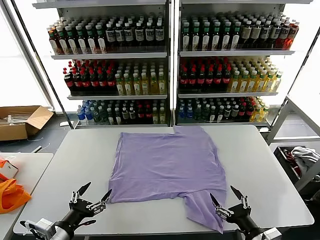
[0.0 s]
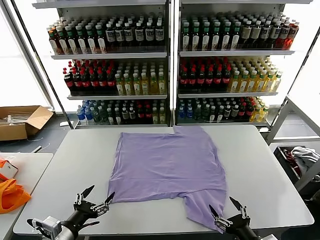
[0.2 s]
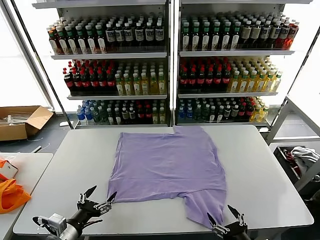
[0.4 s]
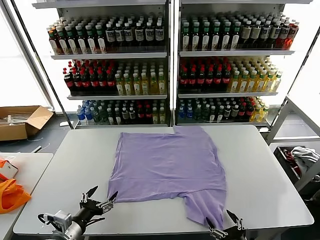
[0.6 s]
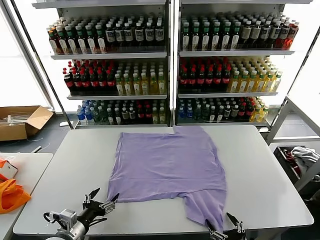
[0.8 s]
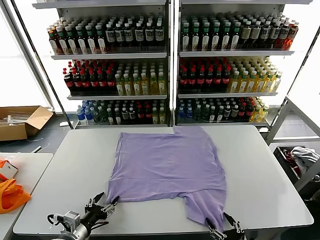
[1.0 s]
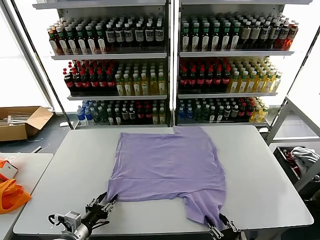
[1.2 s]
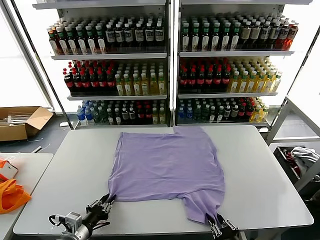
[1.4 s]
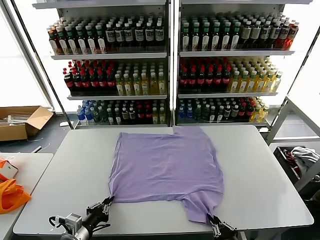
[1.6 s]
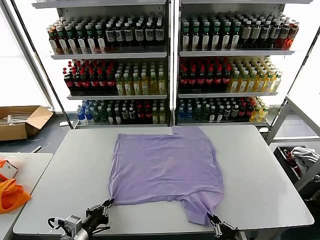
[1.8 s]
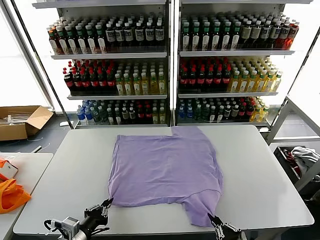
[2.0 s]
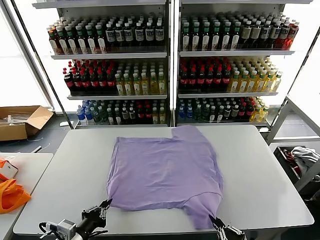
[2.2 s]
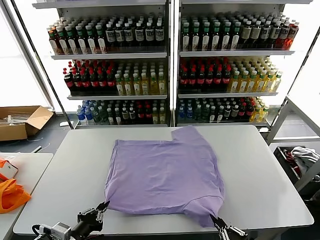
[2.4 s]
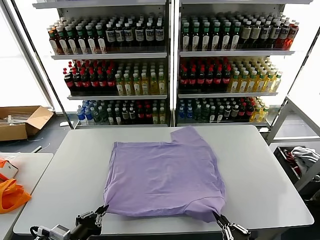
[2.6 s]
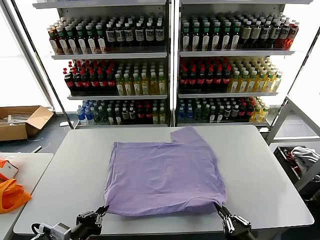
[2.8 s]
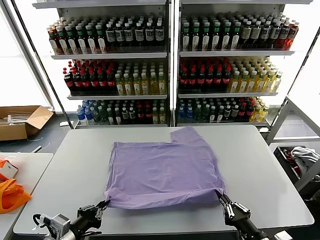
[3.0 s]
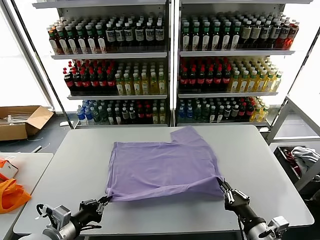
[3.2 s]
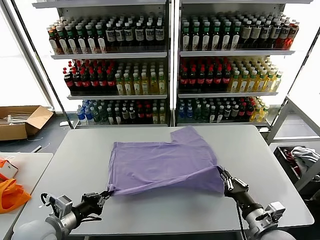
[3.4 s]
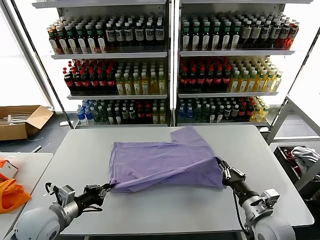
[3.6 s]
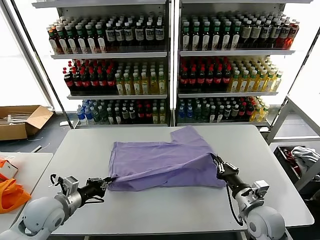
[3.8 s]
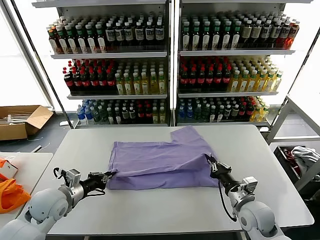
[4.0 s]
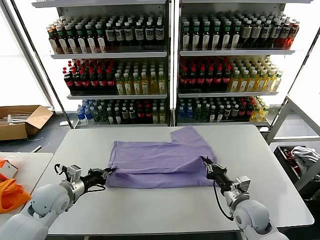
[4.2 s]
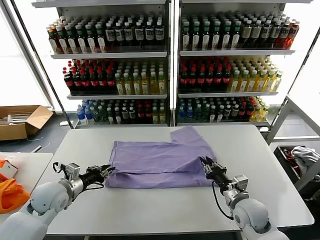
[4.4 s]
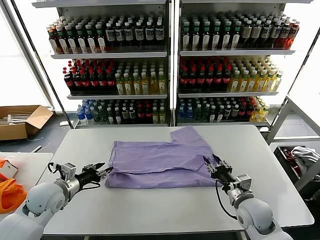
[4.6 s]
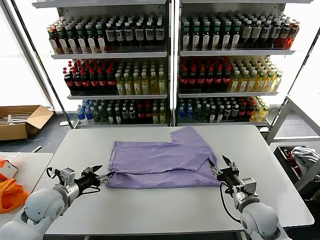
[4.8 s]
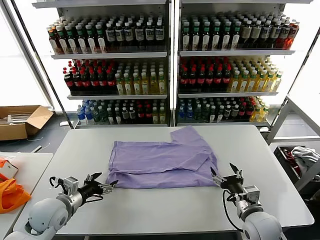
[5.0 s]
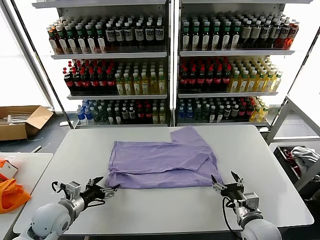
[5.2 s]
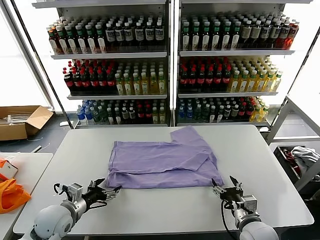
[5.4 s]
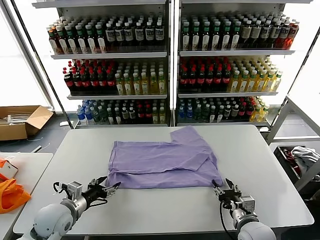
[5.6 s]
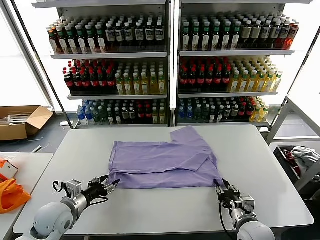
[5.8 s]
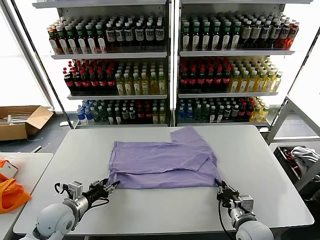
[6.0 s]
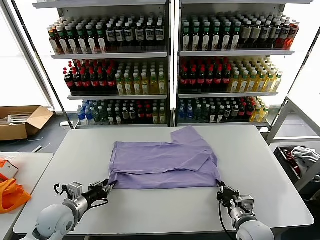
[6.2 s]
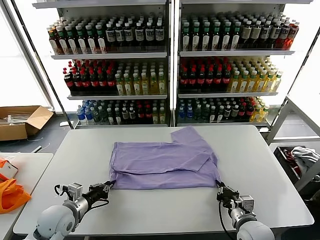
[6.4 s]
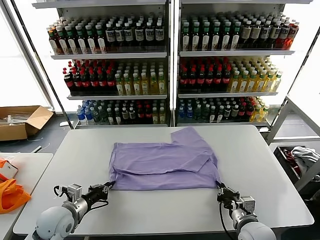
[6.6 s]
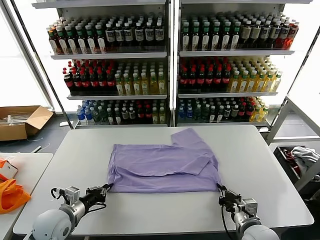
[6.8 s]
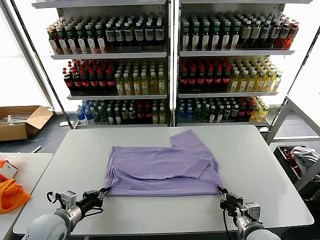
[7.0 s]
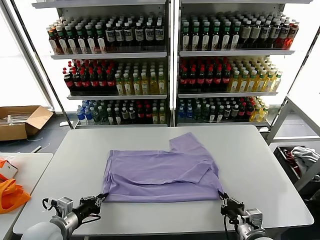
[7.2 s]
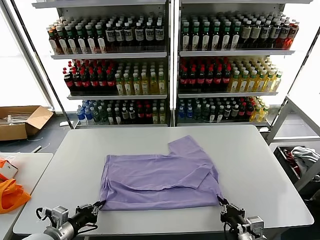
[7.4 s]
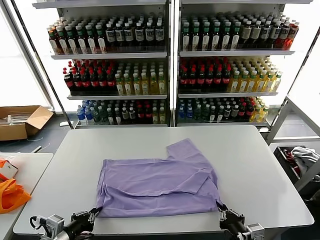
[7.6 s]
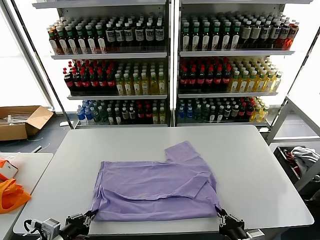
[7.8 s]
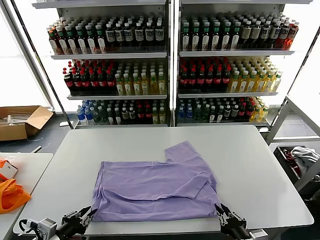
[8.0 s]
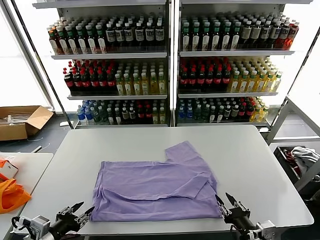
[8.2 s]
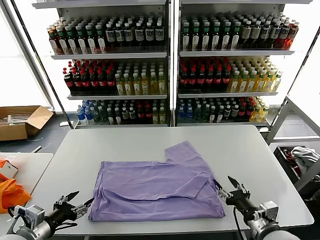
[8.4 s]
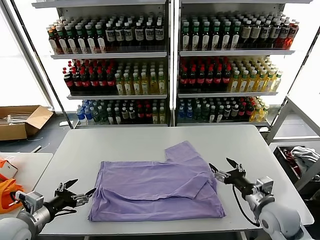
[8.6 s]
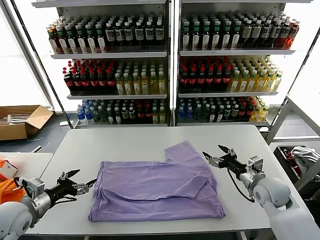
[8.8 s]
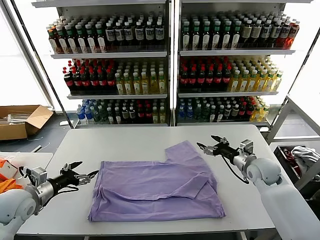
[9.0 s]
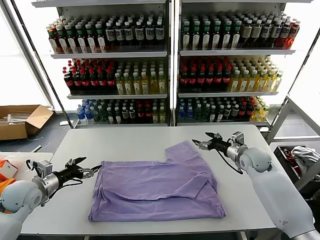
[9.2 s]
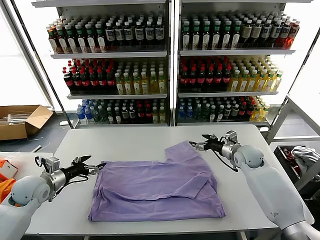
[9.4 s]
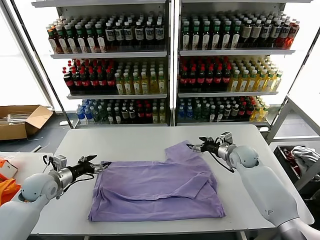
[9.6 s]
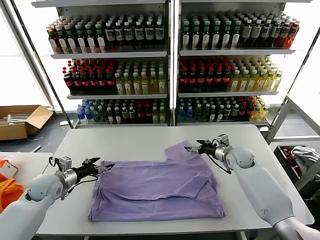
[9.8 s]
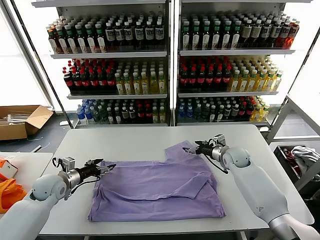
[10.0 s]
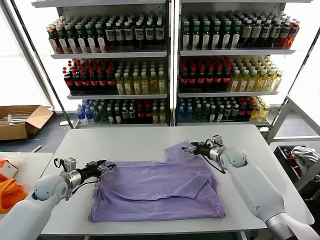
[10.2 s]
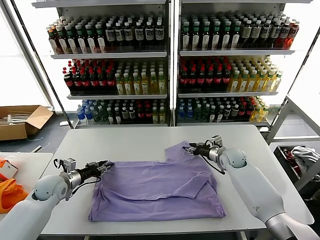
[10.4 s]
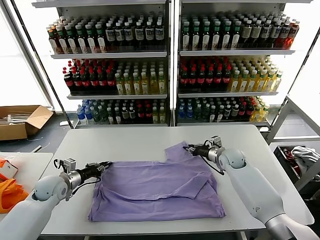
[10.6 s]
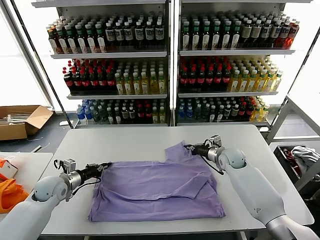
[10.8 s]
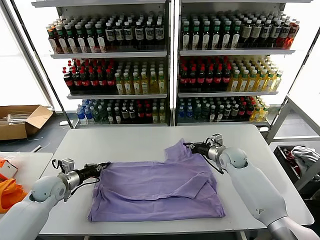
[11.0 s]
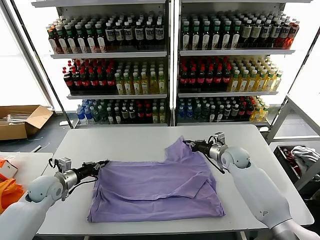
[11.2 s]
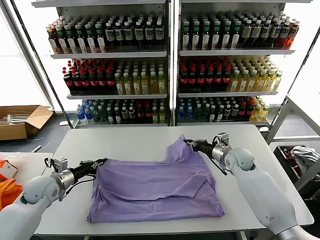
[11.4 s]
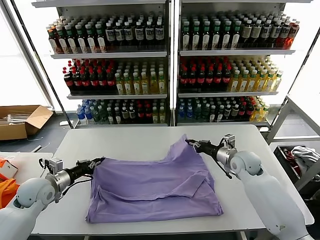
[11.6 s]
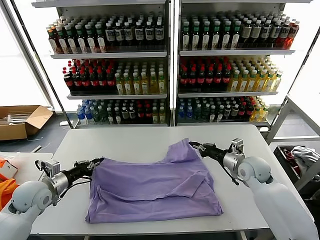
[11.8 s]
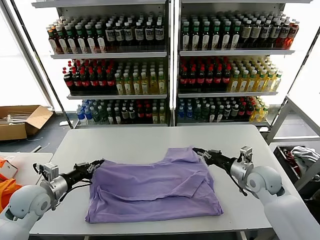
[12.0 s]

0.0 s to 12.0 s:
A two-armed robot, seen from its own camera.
Task of the whole recording: fold and organize the clothes.
Step, 0.0 to 1.6 s: use both grippers simultaneously to clamp the lower edge of the clothing fabric.
Step, 1.8 to 4.6 s: use both grippers to drag the lower edge of the fabric forward and fold it over the upper edge.
Step, 4.8 to 8.0 s: Drag the clothes downward with both gripper.
Step, 8.2 to 10.8 s: use both grippers simultaneously to clamp the upper edge of the clothing fabric.
1.6 to 3.0 s: The left gripper moves upward, about 10 cm. Meanwhile the right gripper changes place by approximately 5 cm.
3.0 to 4.4 s: The grippers both shift forward by about 15 cm. The right gripper opens up.
4.4 to 6.0 s: The grippers both shift backward by roughly 5 cm. The left gripper opens and closes again, while the right gripper closes up.
6.0 to 7.6 s: Both grippers move backward, some 10 cm. The left gripper closes up.
7.6 to 9.0 s: The left gripper travels forward and to the left by approximately 15 cm, and opens, while the right gripper moves forward, roughly 30 cm, and opens up.
9.0 to 10.4 s: The right gripper heads forward, downward and to the left, covering approximately 10 cm, and closes up; the left gripper shifts some 10 cm forward and downward, and closes its fingers.
10.4 to 12.0 s: The right gripper moves backward and upward, approximately 15 cm, and closes; the left gripper shifts roughly 10 cm backward and upward, and closes up.

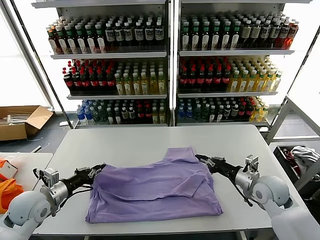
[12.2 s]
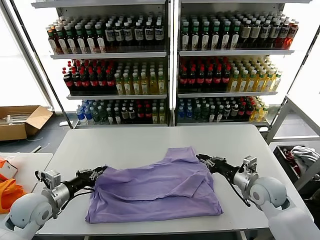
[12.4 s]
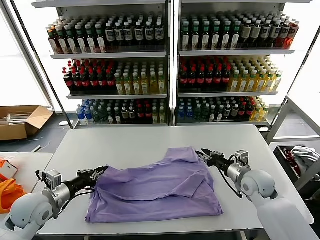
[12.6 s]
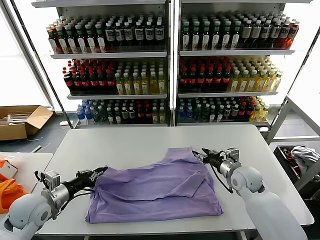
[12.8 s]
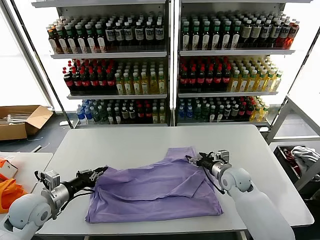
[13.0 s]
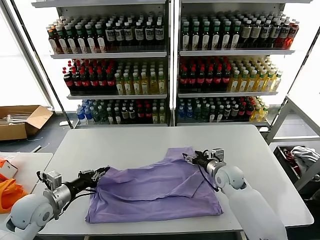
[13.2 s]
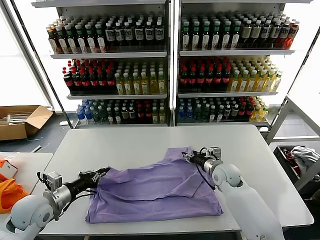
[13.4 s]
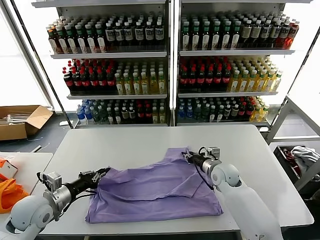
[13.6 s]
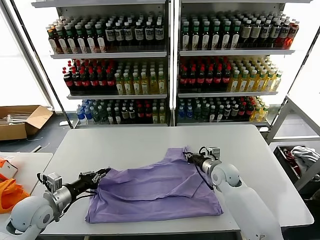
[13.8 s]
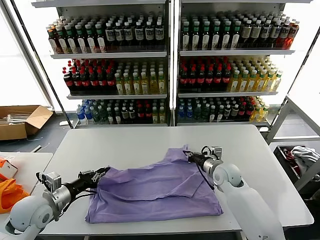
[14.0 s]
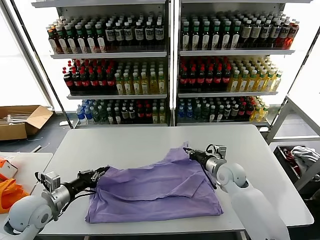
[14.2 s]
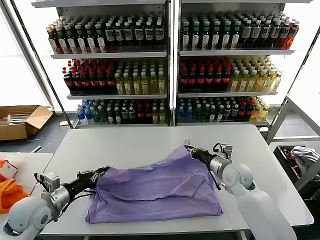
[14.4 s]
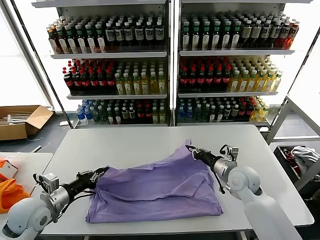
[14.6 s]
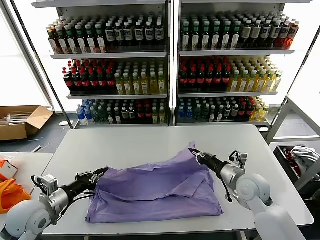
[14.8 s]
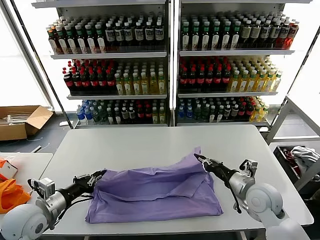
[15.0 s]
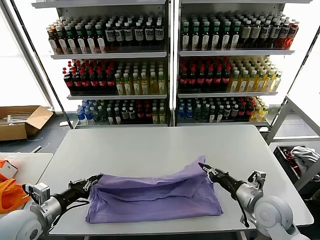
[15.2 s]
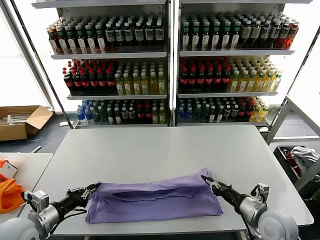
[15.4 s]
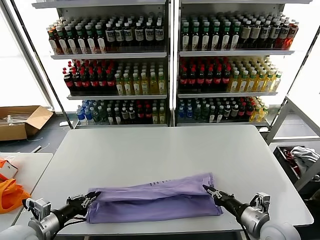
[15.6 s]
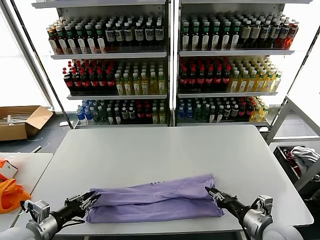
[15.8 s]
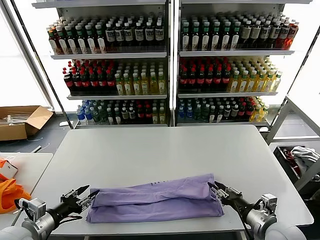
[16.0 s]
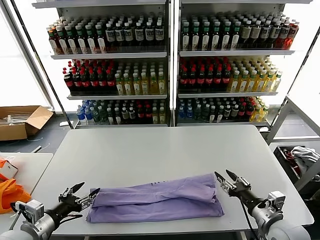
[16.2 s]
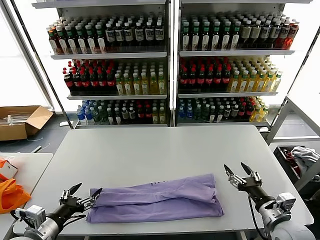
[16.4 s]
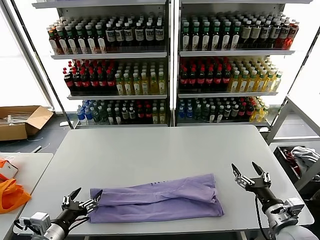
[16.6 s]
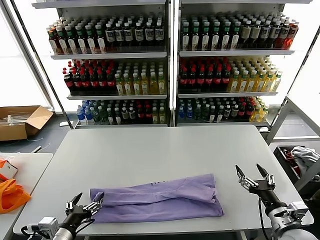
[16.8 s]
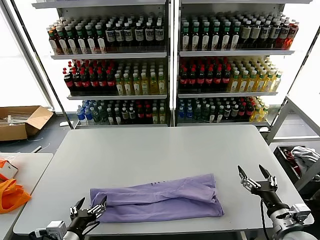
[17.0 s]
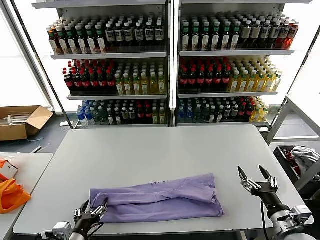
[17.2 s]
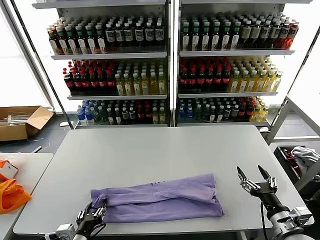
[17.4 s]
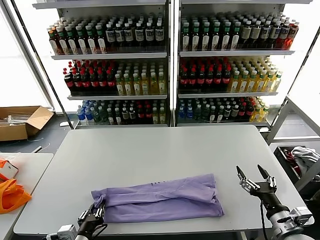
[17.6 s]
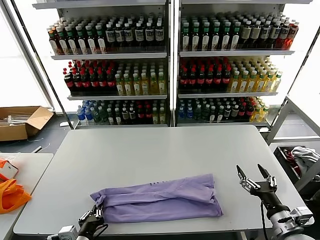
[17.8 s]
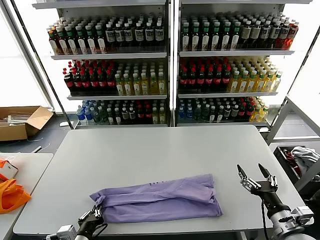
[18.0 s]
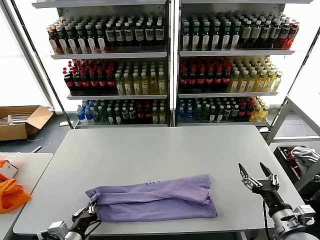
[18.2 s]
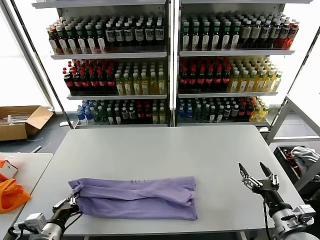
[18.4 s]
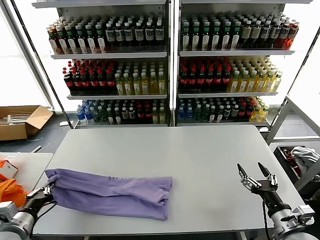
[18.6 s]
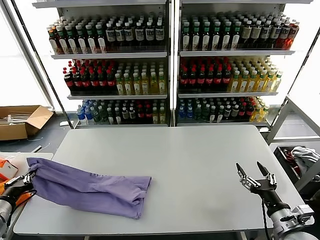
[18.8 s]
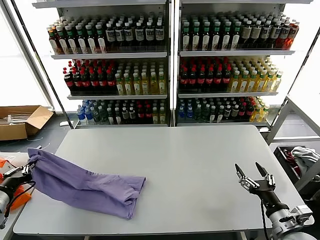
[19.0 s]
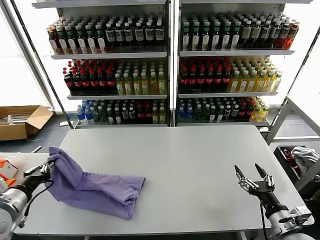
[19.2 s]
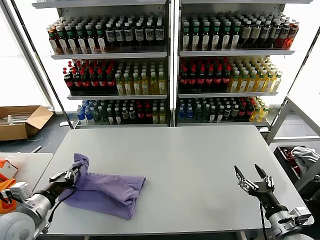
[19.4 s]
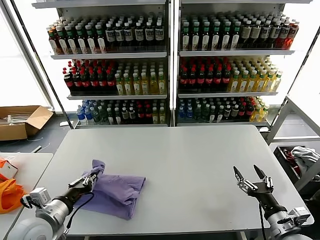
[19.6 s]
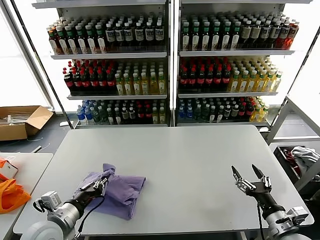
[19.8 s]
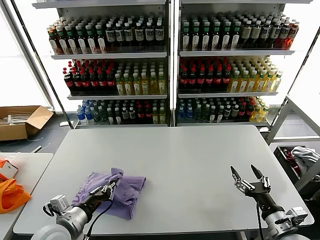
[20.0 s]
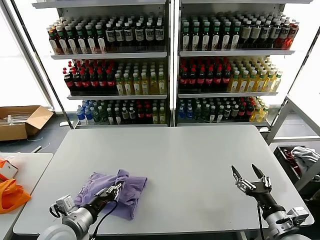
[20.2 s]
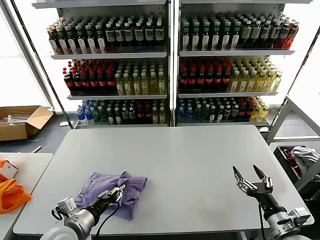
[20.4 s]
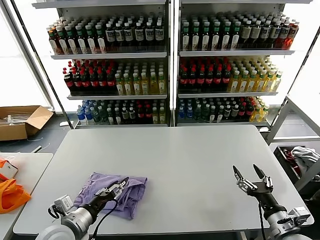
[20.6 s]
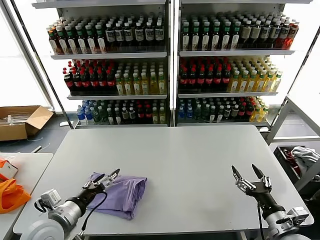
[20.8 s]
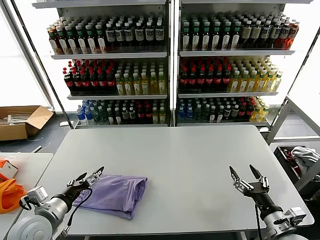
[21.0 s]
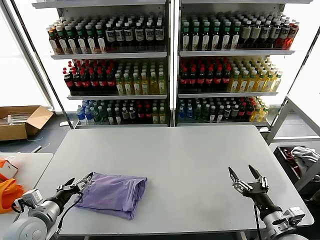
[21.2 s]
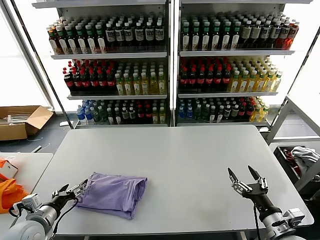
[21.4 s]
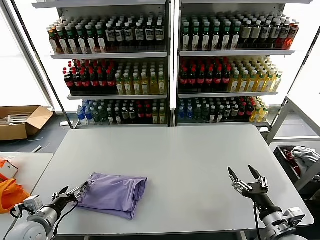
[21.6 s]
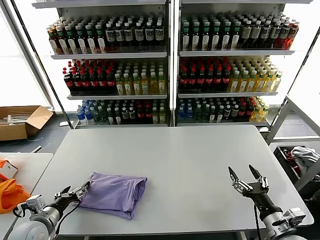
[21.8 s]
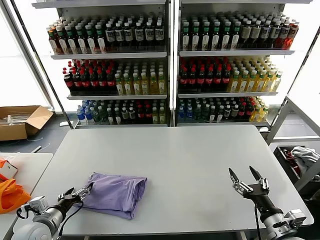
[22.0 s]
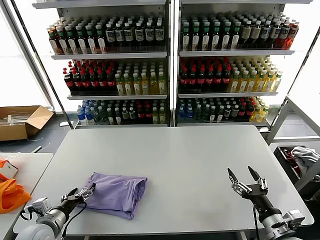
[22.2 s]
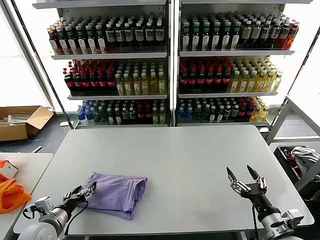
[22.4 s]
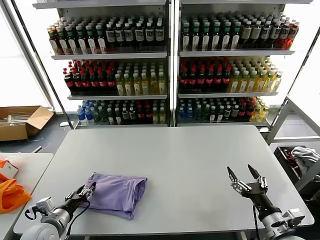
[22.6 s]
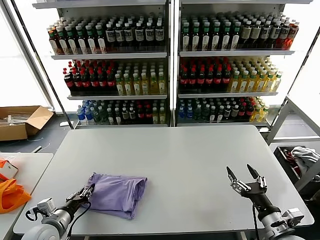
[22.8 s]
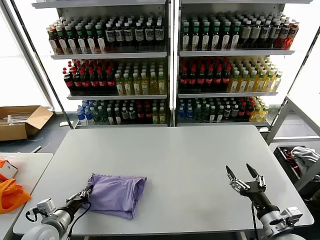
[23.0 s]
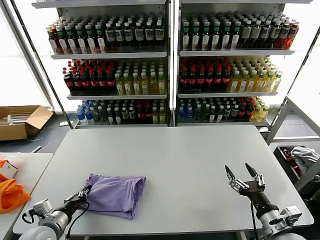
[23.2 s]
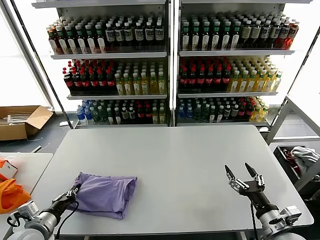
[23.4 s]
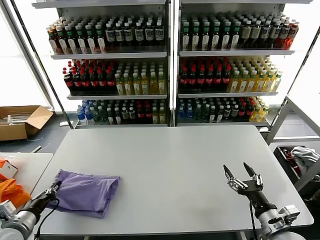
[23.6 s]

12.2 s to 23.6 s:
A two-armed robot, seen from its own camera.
Task of the whole recording: fold and organize the clothes.
Step, 12.2 to 16.0 s: use both grippers to drag the upper edge of the fabric backward and fold it over the lower edge.
Step, 16.2 to 18.0 s: use the left gripper to clamp the left edge of the fabric.
Step, 18.2 to 20.4 s: use the left gripper to drag the left edge of the fabric to the left and folds it over the right edge.
12.2 to 13.6 s: The right gripper heads to the left, forward and downward, covering about 15 cm, and opens, then closes again.
13.6 to 15.0 s: The right gripper goes roughly 15 cm backward, upward and to the right.
15.0 to 16.4 s: The left gripper shifts approximately 10 cm backward, and opens. Meanwhile the right gripper moves backward and to the right, some 10 cm, and opens.
16.4 to 17.8 s: The left gripper heads to the right and downward, covering approximately 15 cm, and closes its fingers.
17.8 to 19.4 s: The left gripper shifts about 20 cm to the left, upward and forward.
19.4 to 20.8 s: The left gripper travels to the right by about 10 cm, and opens up.
20.8 to 22.2 s: The left gripper moves downward and to the left, about 10 cm.
22.2 to 23.6 s: The left gripper ends up some 5 cm from where it was, and closes its fingers.
